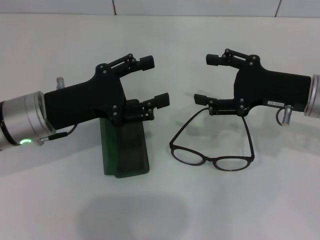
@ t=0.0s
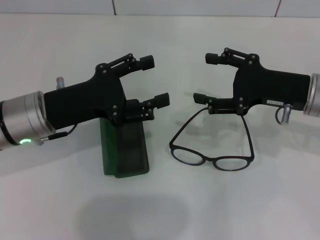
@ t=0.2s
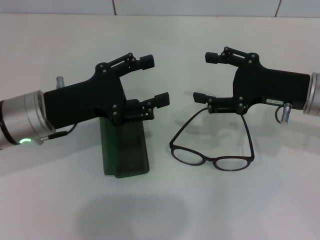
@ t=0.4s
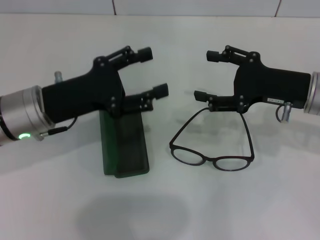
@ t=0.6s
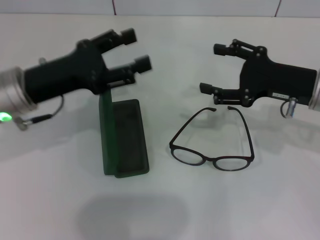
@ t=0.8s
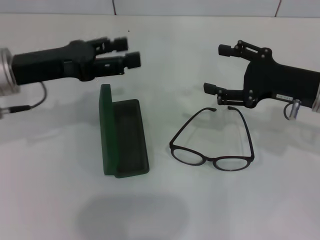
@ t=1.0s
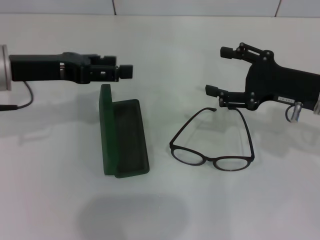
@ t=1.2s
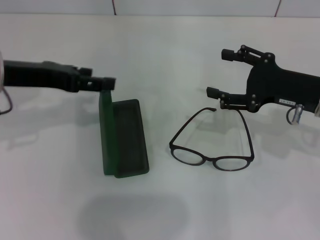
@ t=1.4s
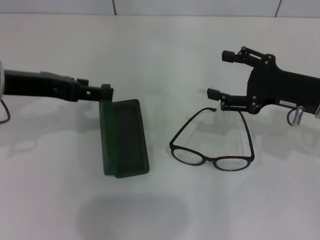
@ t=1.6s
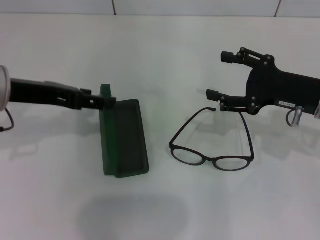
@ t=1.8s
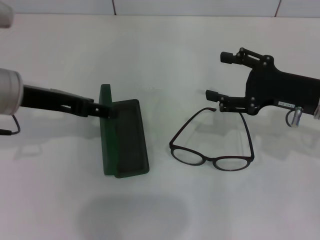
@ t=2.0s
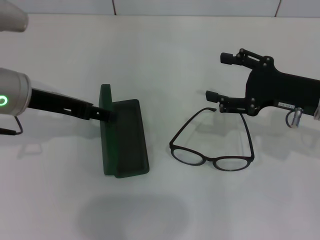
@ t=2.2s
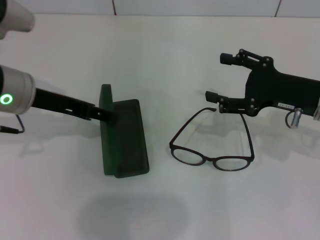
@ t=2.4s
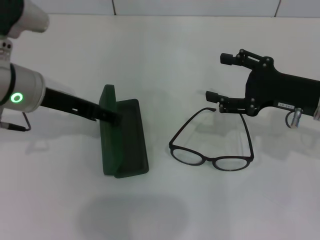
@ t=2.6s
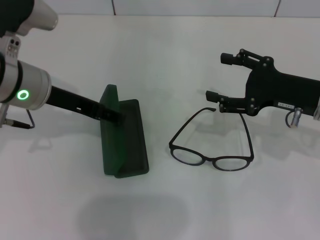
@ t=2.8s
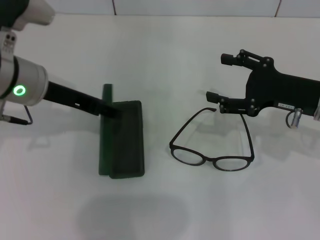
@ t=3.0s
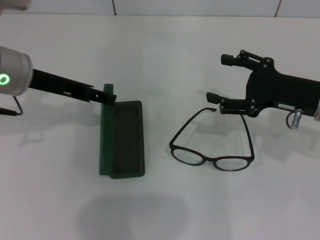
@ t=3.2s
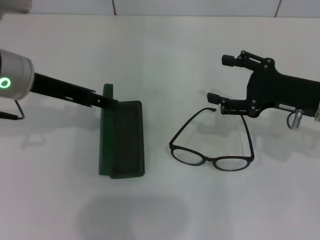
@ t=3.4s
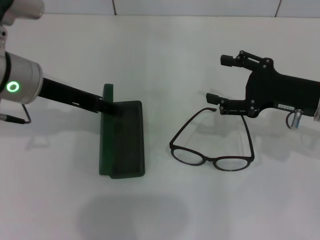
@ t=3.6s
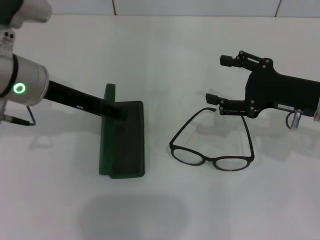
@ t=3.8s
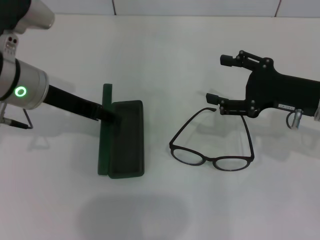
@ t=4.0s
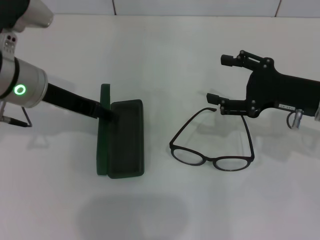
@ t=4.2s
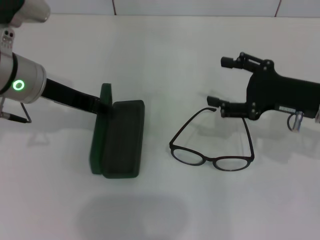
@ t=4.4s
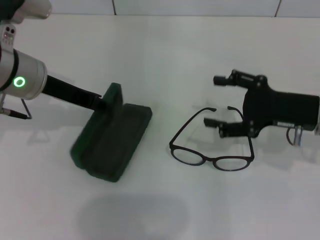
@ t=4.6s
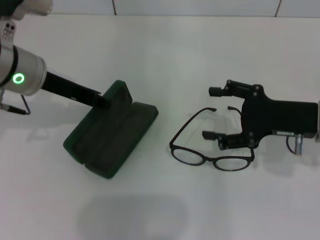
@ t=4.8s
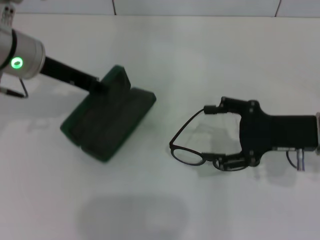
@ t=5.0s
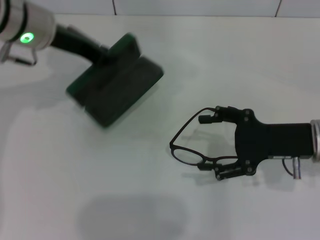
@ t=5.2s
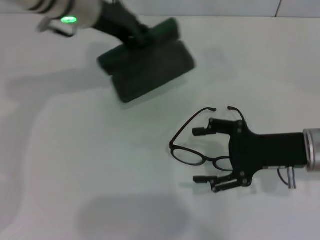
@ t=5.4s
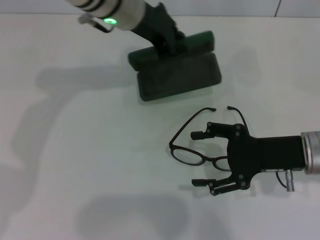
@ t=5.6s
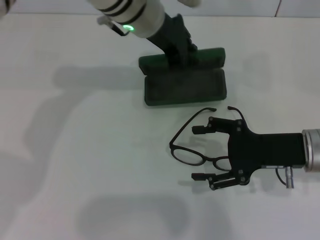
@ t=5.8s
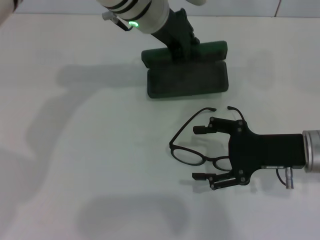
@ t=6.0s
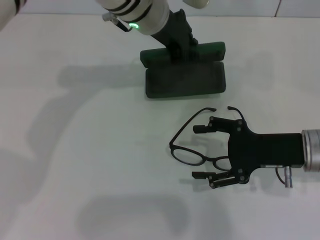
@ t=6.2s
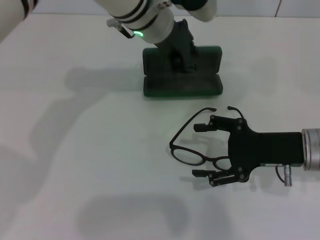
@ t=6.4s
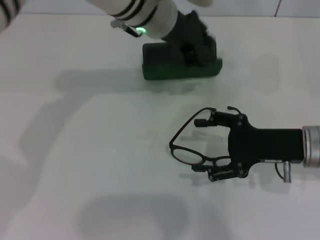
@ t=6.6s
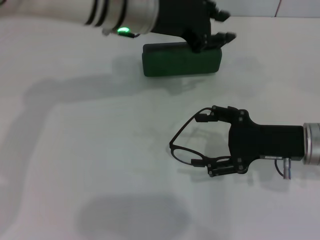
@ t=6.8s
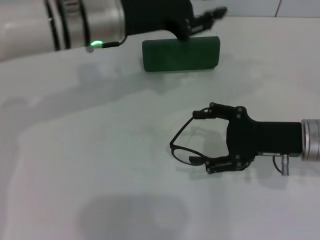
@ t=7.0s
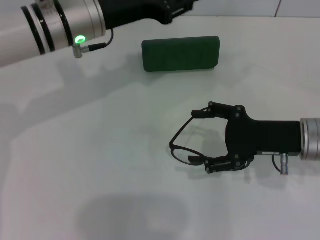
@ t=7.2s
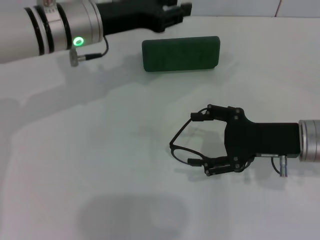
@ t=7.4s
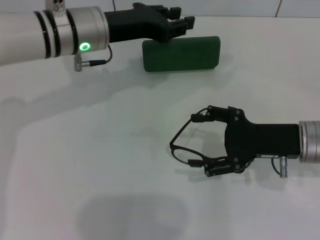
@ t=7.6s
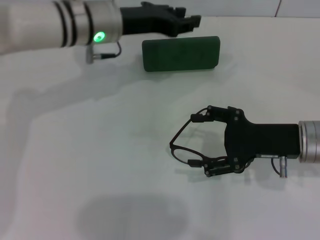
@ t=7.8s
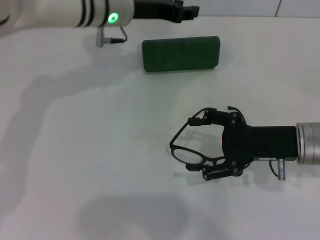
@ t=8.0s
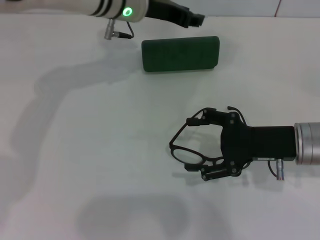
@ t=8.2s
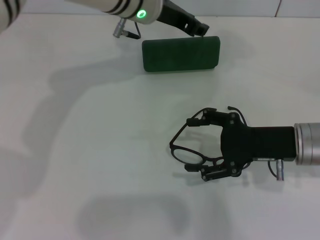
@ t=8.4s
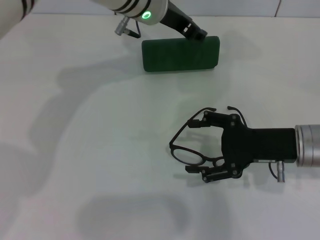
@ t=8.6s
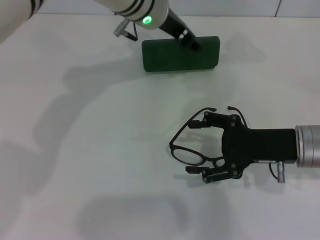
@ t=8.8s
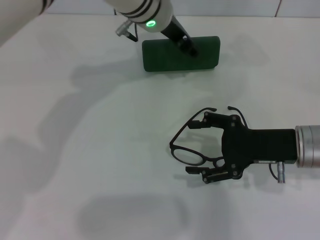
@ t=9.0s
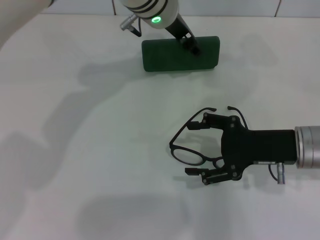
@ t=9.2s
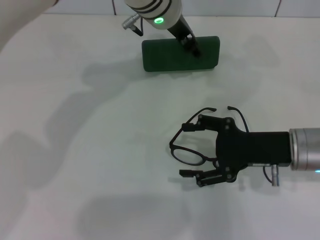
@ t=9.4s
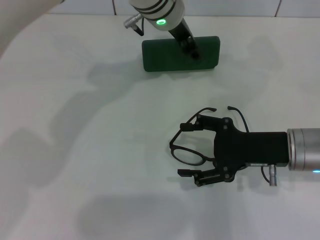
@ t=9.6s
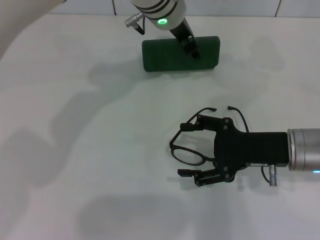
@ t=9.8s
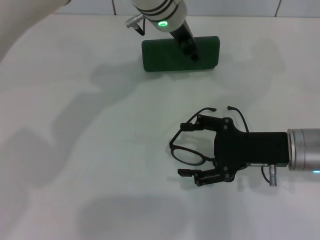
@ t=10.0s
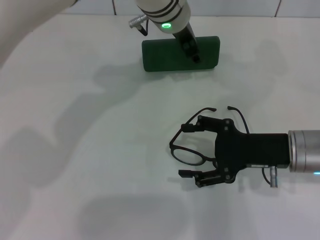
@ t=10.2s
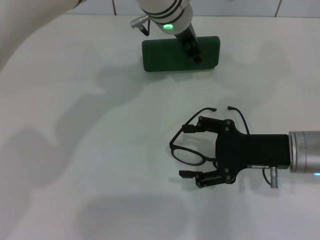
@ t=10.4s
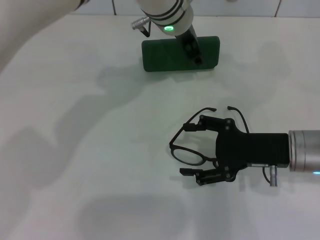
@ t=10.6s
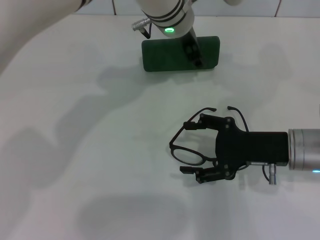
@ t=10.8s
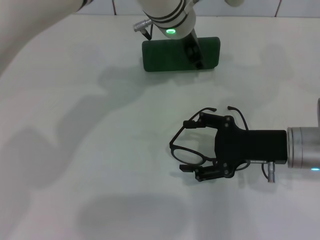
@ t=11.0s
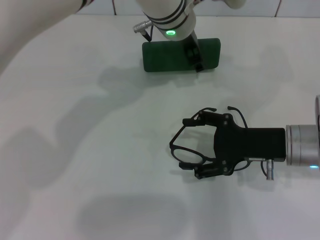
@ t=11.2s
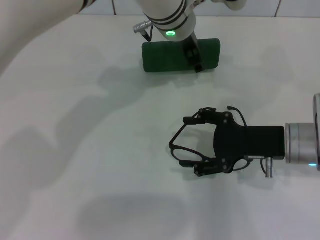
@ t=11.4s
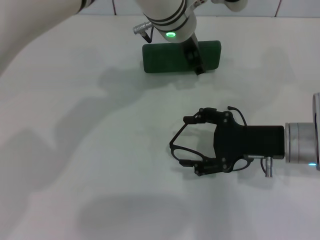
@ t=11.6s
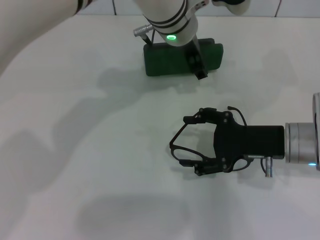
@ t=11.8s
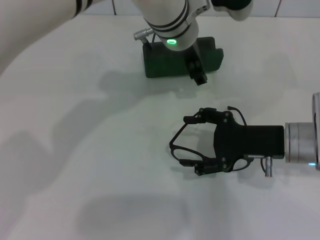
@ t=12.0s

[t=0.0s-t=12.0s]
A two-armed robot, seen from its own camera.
Step, t=0.0s to t=4.6s: Grab the glasses case with your left hand.
t=0.0s to t=1.6s: The left gripper travels upward by about 10 cm.
t=1.6s to t=3.0s: The left gripper ends up roughly 5 cm from where it was.
t=3.0s to t=4.4s: The left gripper closes its fingers.
t=4.4s to t=6.0s: The left gripper shifts some 20 cm to the right and forward, and closes. The right gripper changes place by about 5 cm.
t=6.0s to t=7.6s: The left gripper moves to the left, roughly 10 cm.
t=7.6s to t=9.0s: The left gripper is displaced to the right and forward by about 10 cm.
t=9.0s to t=10.4s: The grippers move only a little.
t=10.4s to t=12.0s: The grippers stay close to where they were, moving slightly.

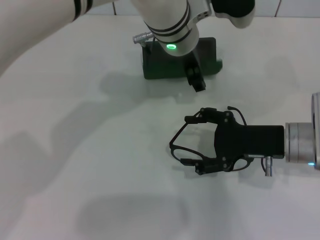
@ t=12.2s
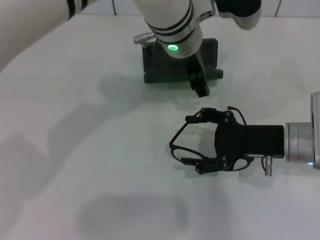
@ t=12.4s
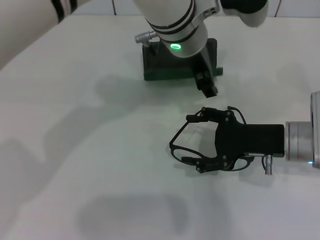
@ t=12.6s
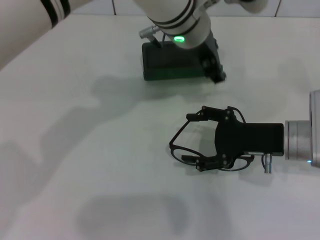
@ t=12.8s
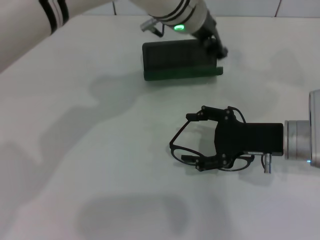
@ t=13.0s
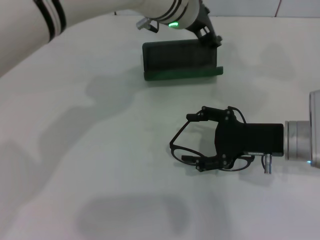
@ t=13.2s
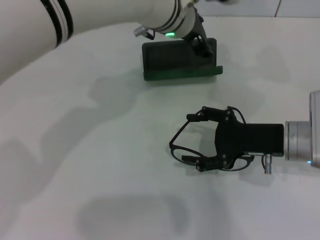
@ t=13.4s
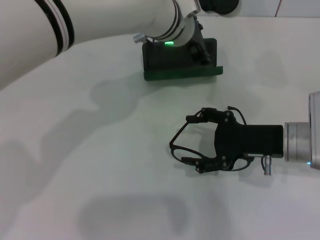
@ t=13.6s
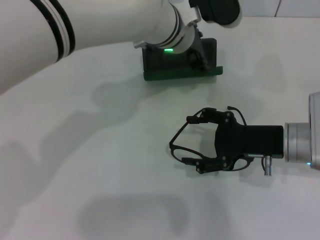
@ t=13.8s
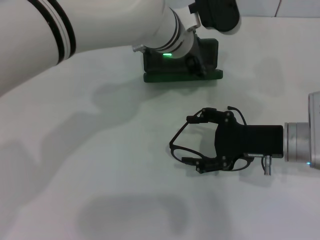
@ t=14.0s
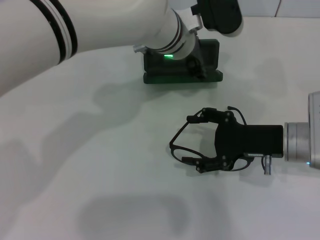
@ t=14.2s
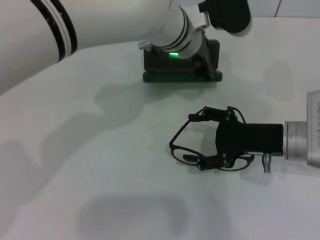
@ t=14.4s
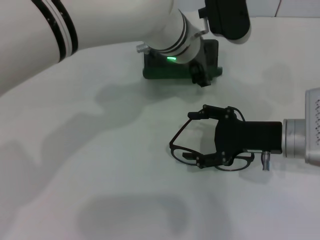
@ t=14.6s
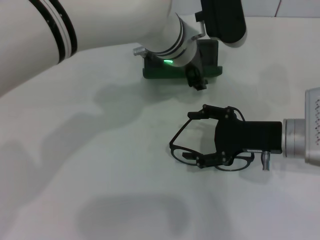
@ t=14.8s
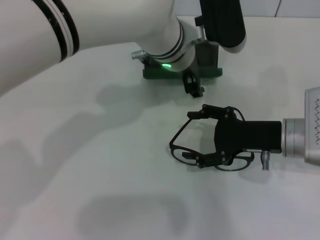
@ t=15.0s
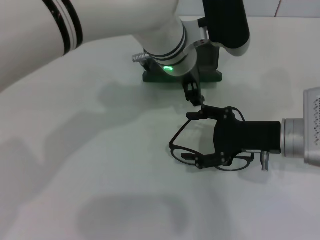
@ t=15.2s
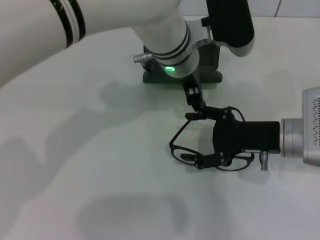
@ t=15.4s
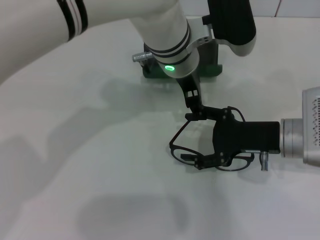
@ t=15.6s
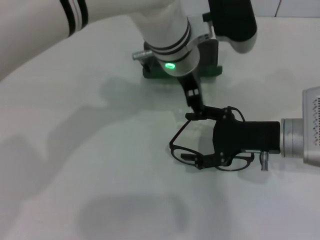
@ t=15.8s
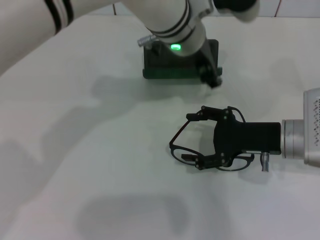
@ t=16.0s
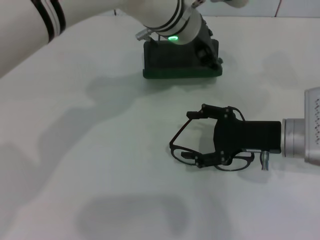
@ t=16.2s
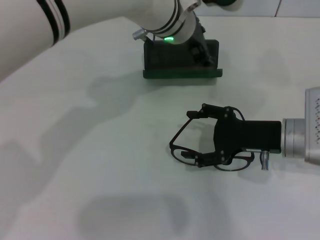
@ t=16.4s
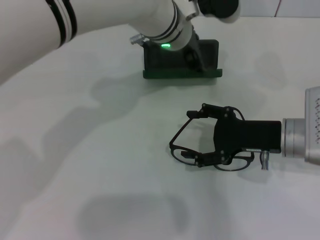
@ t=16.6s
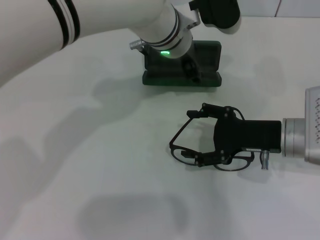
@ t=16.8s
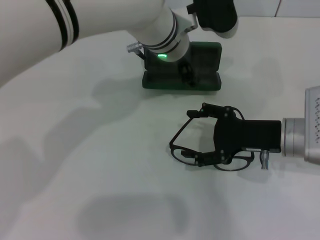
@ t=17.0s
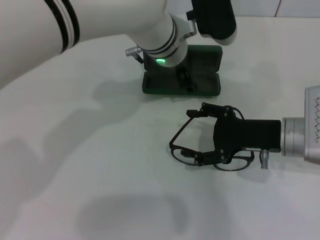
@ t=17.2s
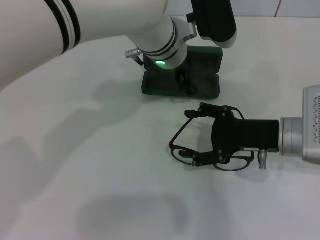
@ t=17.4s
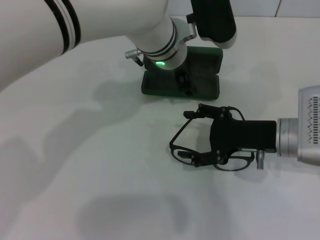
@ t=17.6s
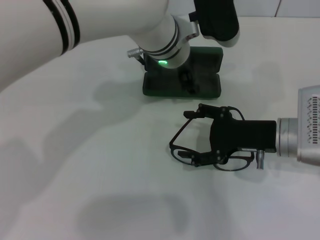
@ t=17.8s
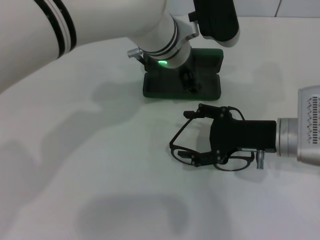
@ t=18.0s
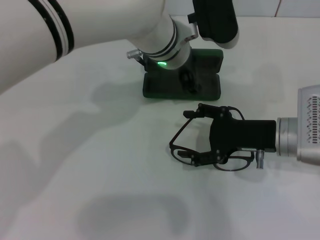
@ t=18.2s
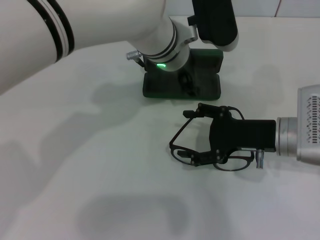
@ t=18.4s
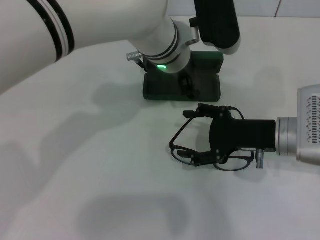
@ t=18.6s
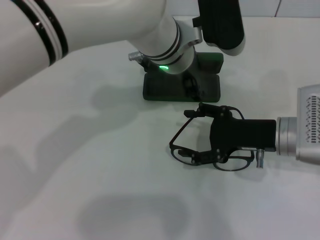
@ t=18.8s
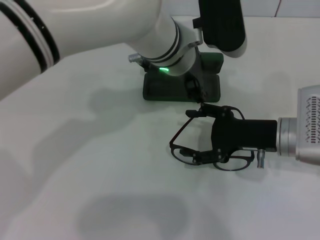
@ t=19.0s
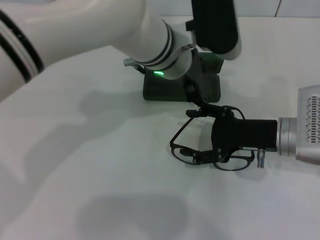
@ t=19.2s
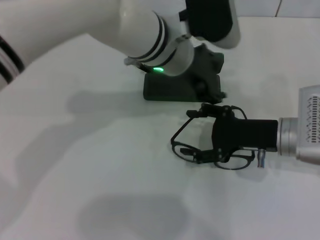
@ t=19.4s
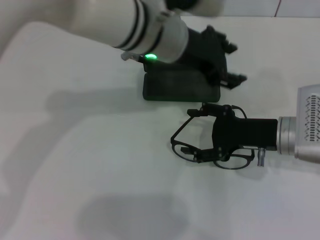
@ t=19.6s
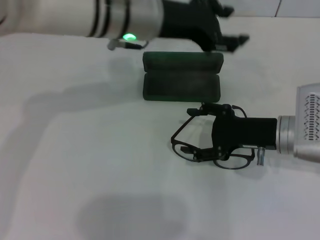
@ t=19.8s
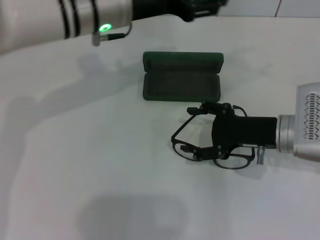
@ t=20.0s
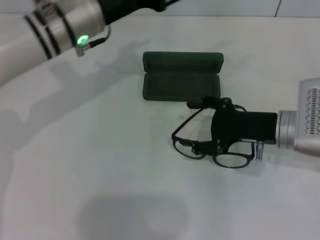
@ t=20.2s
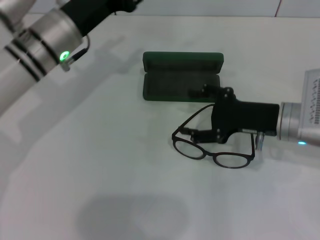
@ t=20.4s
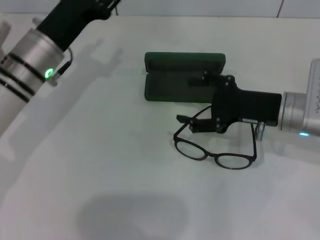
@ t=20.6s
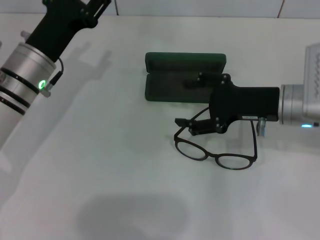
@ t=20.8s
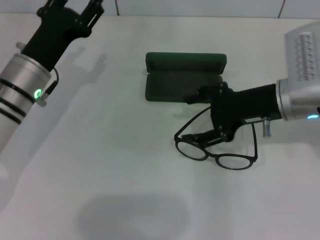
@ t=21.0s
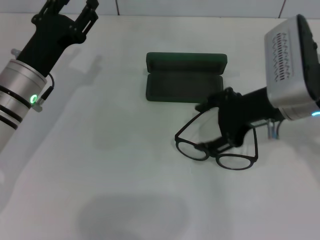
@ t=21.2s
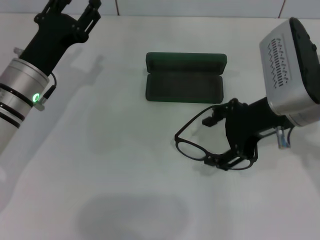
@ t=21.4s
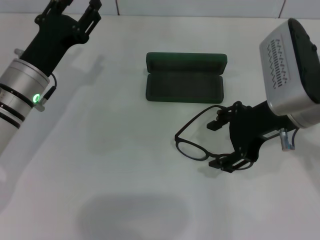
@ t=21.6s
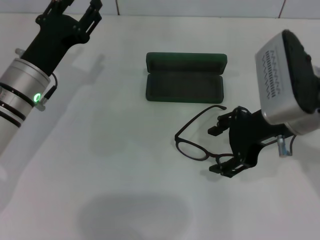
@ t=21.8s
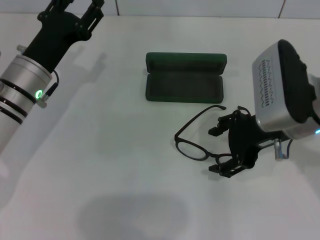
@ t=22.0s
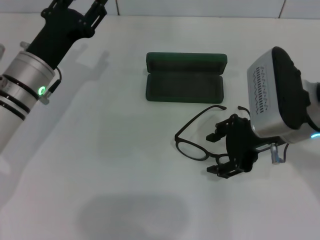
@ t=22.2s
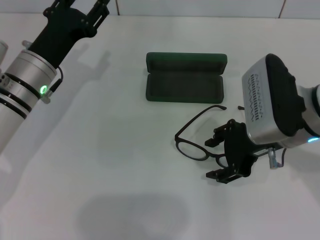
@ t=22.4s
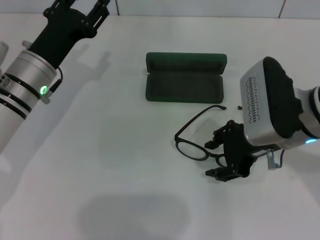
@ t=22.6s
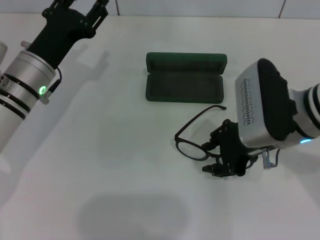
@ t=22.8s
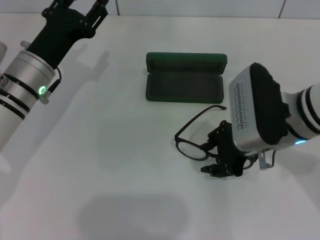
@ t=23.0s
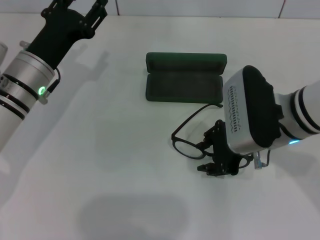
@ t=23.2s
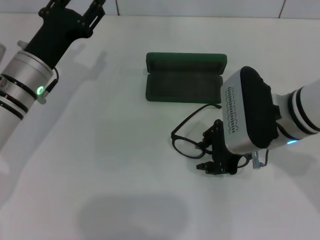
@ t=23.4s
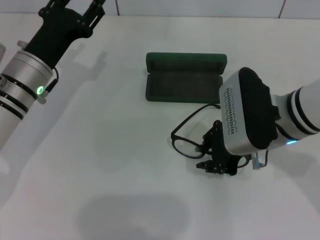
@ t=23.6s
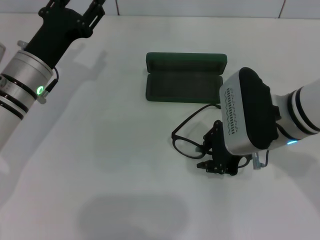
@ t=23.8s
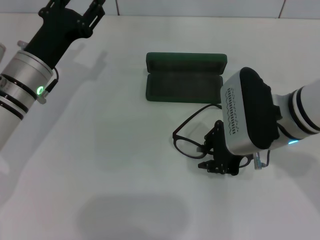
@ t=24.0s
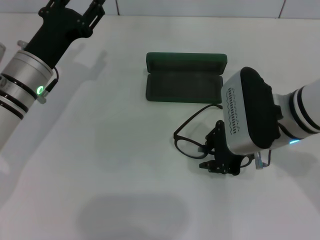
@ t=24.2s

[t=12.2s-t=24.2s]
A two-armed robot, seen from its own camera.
Step, t=12.2s to t=19.0s: Place the glasses case in the center of the table with your left hand.
t=13.8s to t=15.2s: The grippers make only small movements.
t=15.2s to t=18.2s: The grippers move only a little.
t=18.2s to t=19.8s: The left gripper goes some 10 cm to the left and upward.
t=19.8s to t=21.2s: The left gripper heads to the left and downward, covering about 20 cm. Meanwhile the right gripper goes some 10 cm upward.
t=21.2s to t=22.6s: The grippers move only a little.
t=22.6s to t=24.2s: The right gripper closes up.
